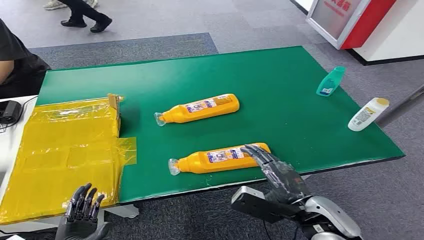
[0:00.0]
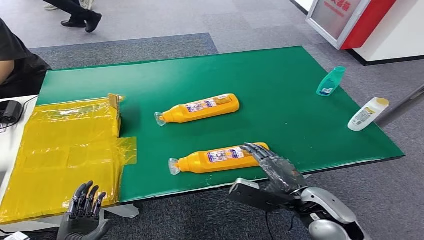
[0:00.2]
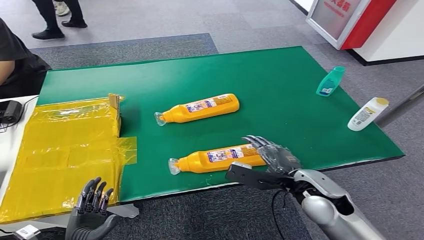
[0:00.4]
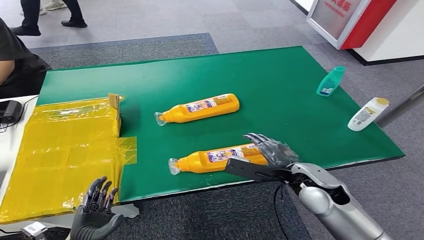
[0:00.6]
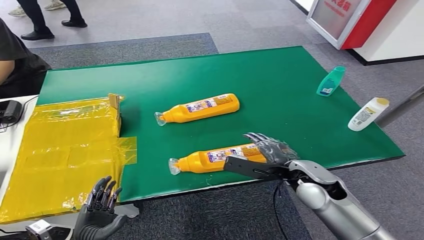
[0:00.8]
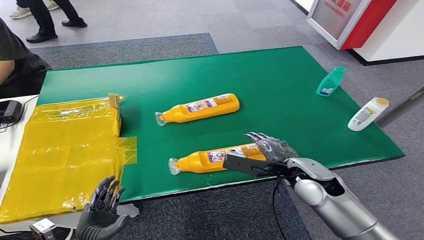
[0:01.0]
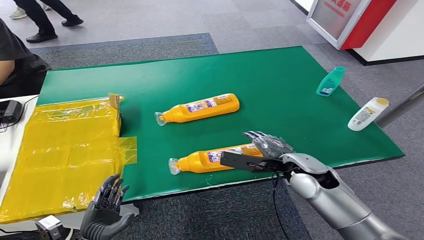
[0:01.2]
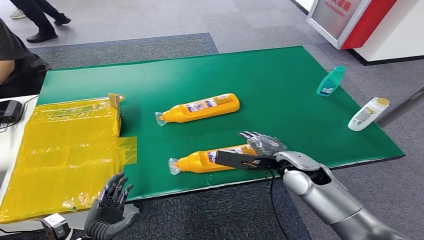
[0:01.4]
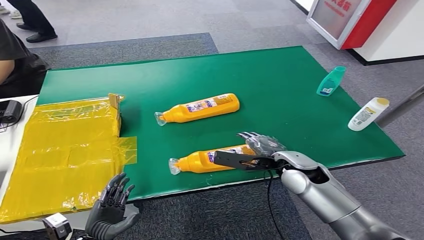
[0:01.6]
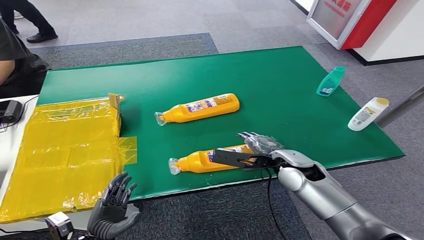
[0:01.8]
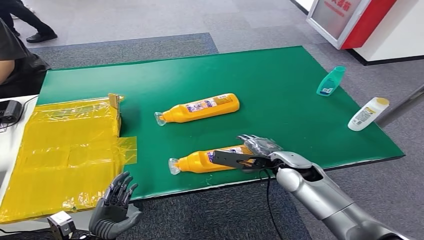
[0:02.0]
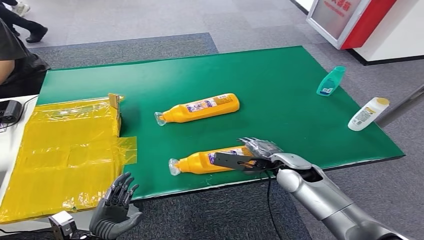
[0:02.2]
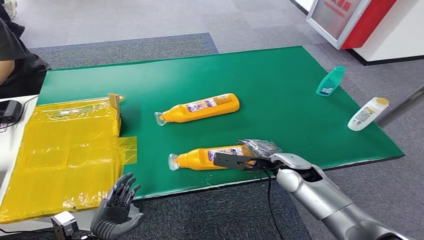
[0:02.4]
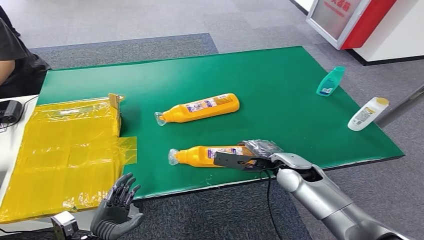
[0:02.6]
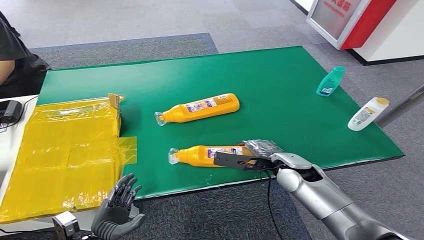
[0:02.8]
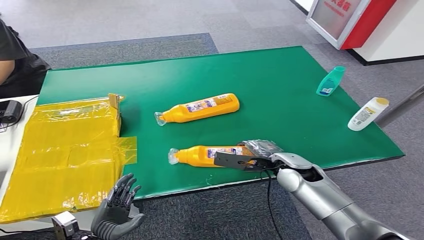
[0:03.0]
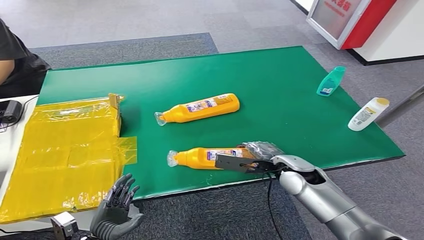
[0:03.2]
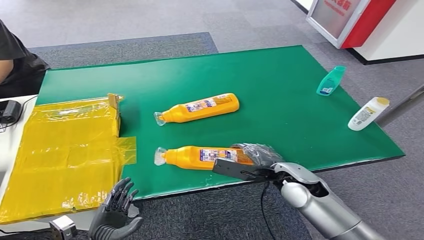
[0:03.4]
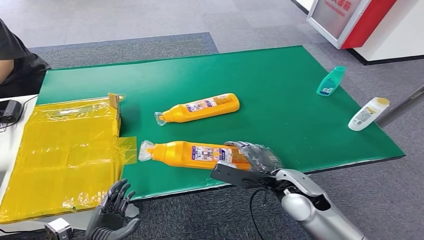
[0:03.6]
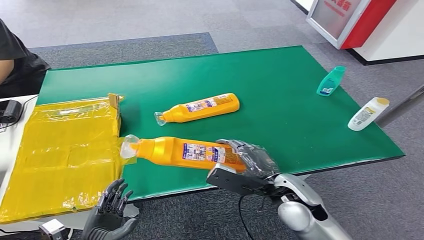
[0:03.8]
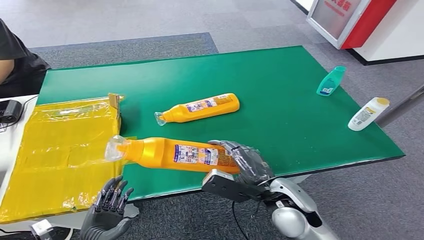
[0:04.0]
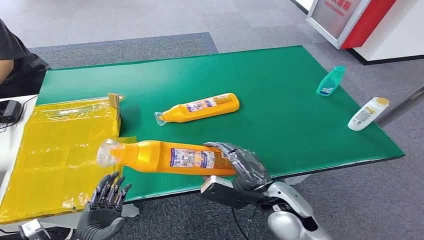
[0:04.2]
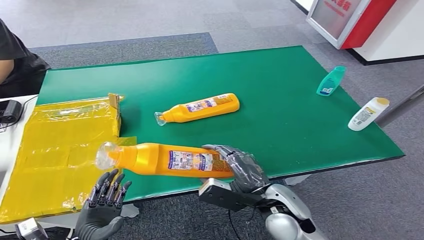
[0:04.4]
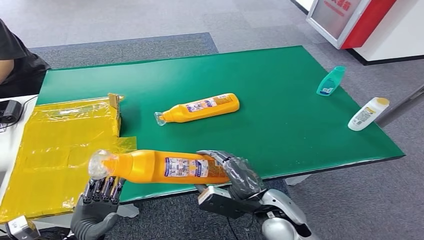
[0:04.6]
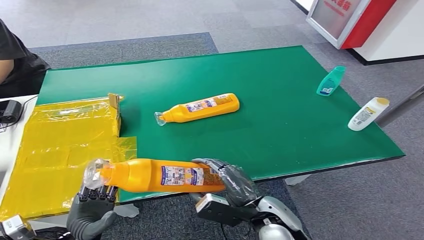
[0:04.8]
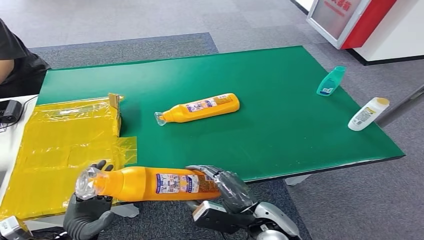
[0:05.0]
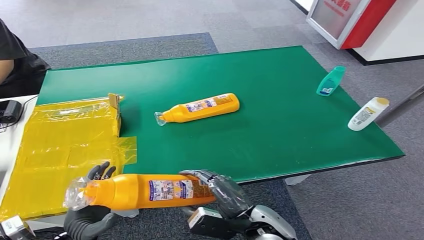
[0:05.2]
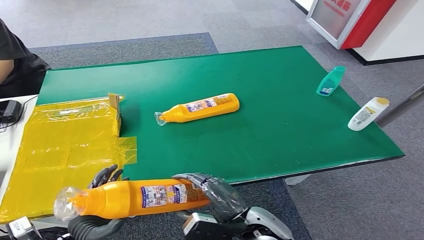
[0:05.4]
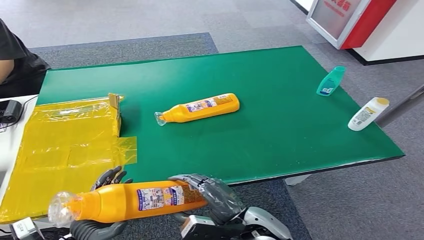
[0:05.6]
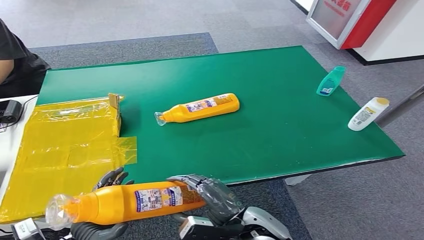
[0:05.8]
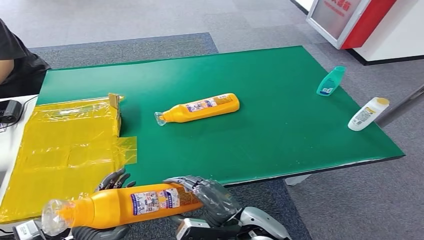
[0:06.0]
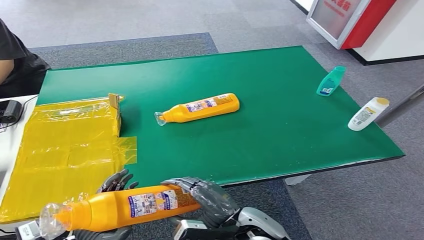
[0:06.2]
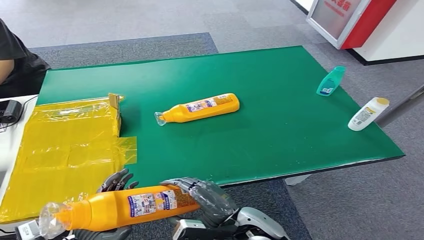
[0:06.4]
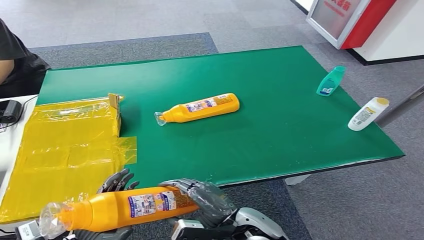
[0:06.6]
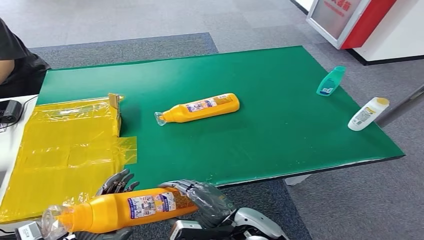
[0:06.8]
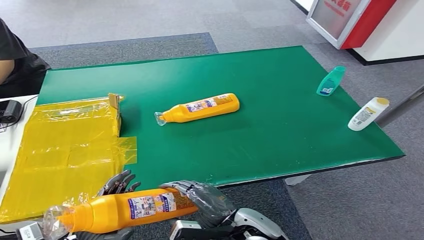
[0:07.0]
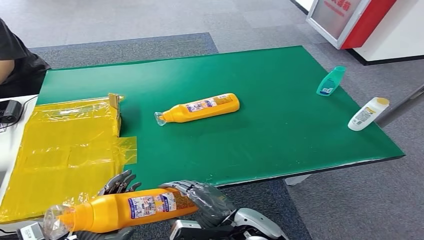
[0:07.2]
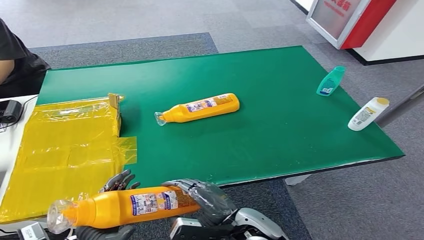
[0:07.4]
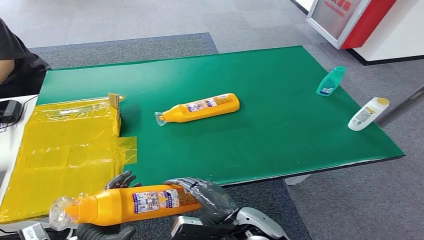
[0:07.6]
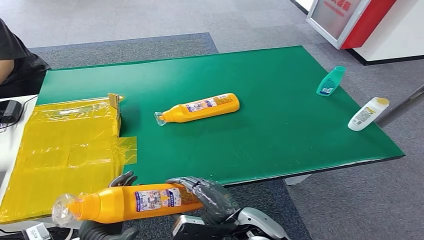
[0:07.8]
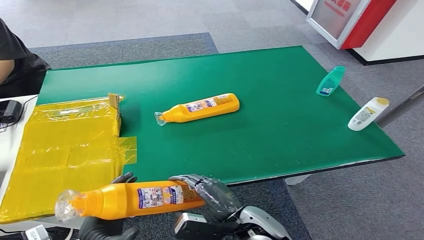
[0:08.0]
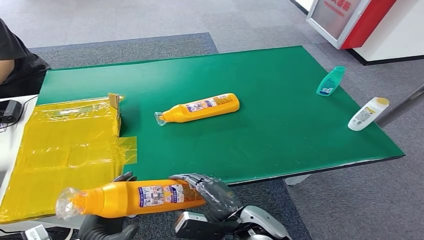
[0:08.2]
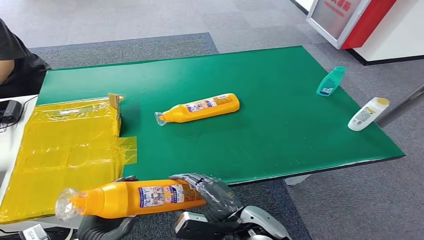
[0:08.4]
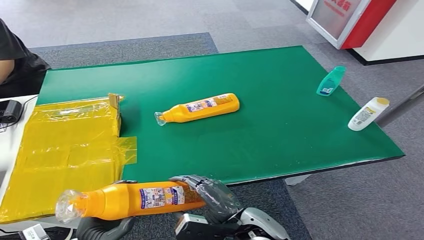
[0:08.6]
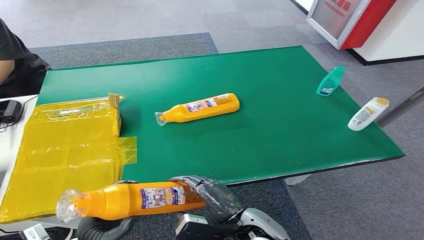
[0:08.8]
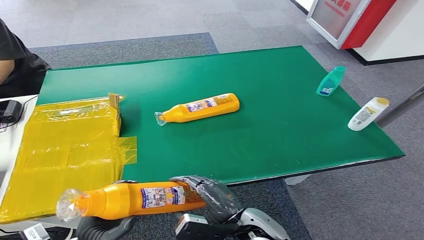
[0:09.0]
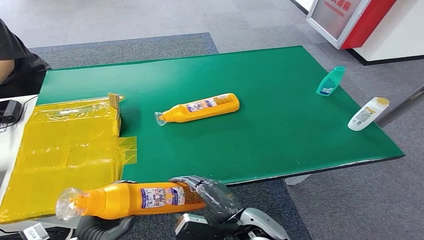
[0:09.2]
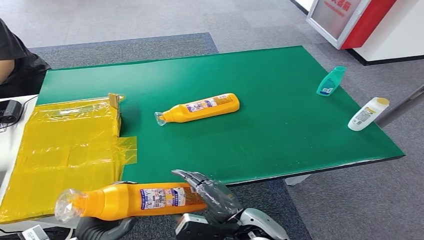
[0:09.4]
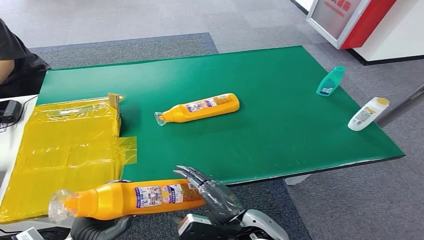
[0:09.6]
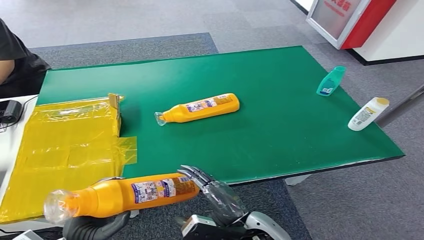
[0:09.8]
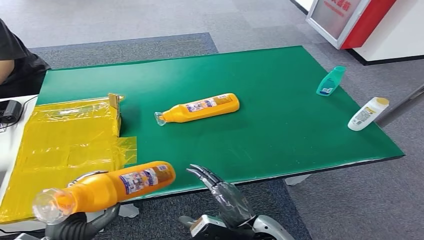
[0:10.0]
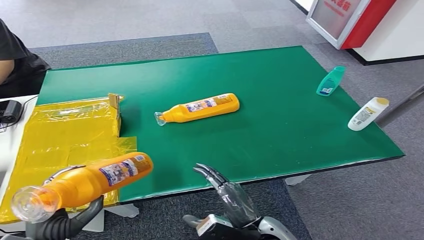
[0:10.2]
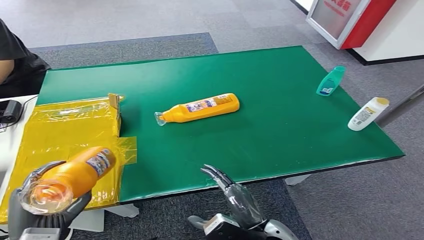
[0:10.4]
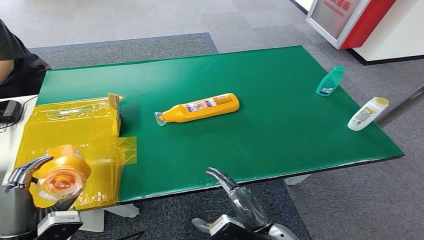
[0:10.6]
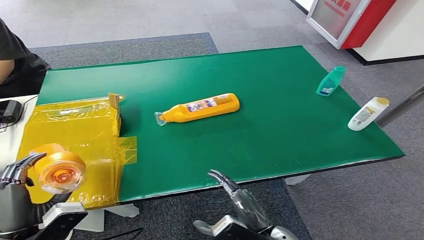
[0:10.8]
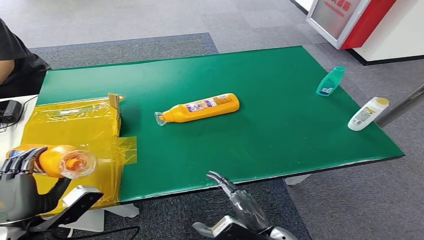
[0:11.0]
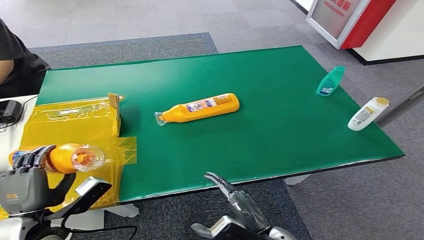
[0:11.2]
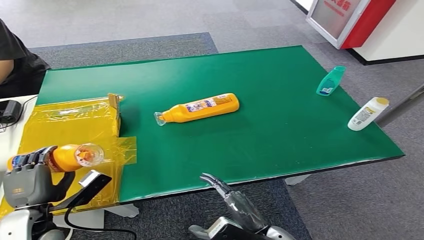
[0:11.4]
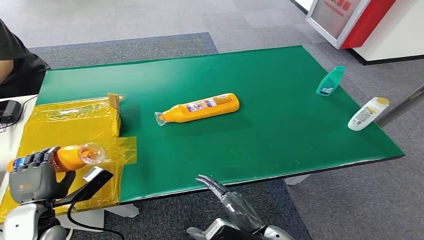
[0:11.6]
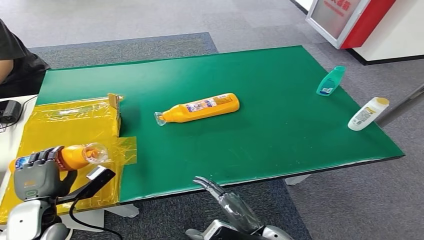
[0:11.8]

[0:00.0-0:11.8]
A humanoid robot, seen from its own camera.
Step, 0:00.0 to 0:03.8: Pick up the bottle from the table.
0:01.4 to 0:03.0: The hands make only small movements.
0:03.0 to 0:04.4: The right hand shifts about 15 cm backward and to the left.
0:04.4 to 0:06.0: The right hand changes place by some 5 cm.
0:06.0 to 0:07.4: The two hands keep their place.
0:07.4 to 0:08.8: Neither hand changes place.
0:08.8 to 0:10.4: The left hand shifts about 10 cm upward and to the left.
0:10.4 to 0:11.8: The left hand heads forward, covering approximately 10 cm.

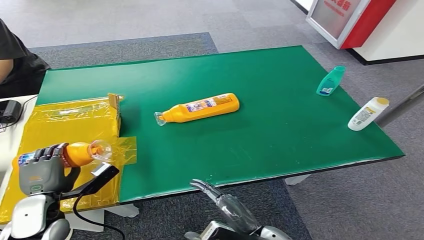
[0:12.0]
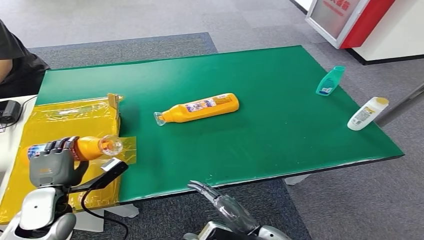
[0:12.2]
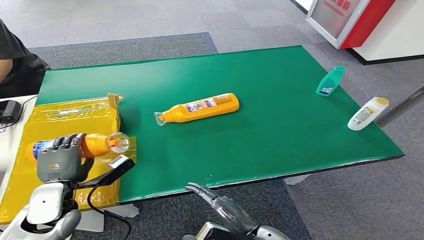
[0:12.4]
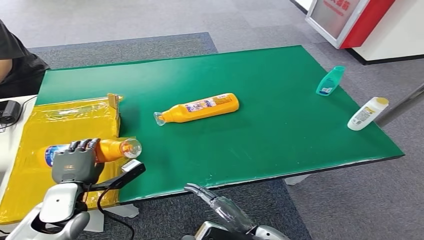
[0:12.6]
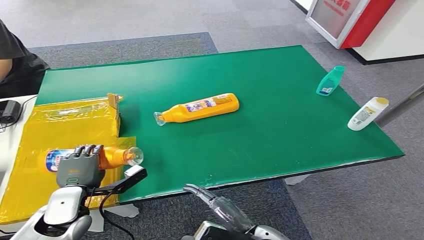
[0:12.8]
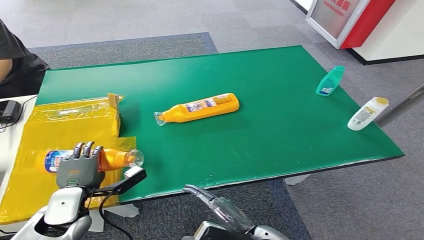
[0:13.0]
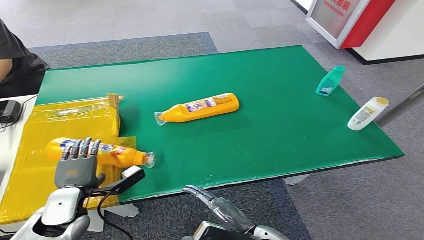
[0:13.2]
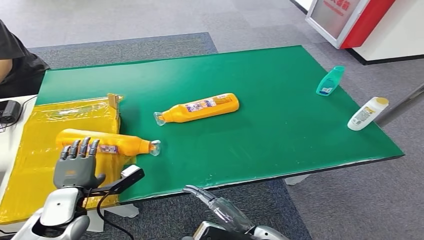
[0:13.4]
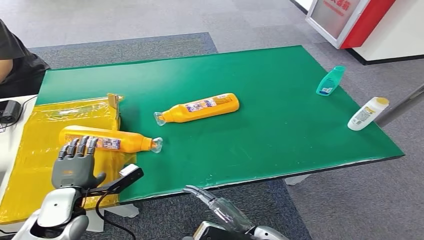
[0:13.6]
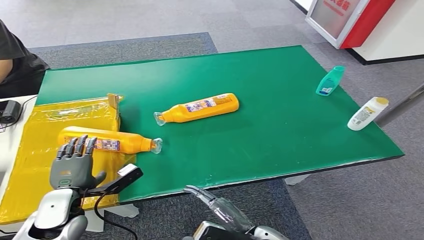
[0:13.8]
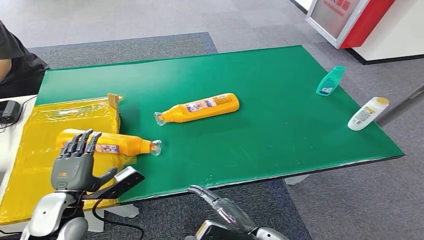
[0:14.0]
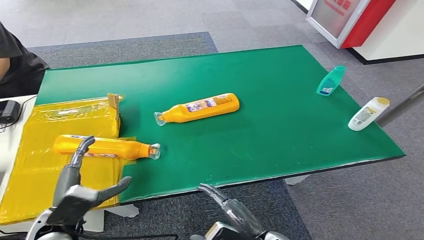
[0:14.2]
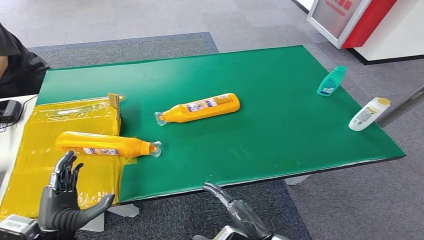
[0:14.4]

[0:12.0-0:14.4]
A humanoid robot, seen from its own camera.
Step, 0:12.0 to 0:14.4: Turn the bottle to the front side.
0:12.0 to 0:13.2: The hands make only small movements.
0:13.2 to 0:14.4: The left hand moves backward, approximately 10 cm.
